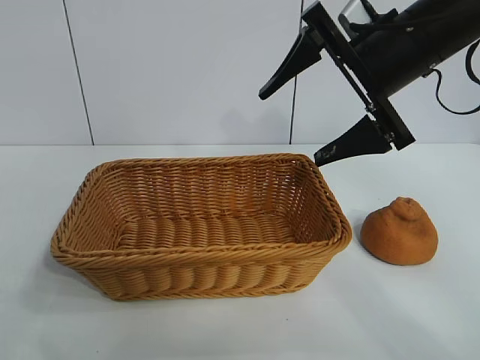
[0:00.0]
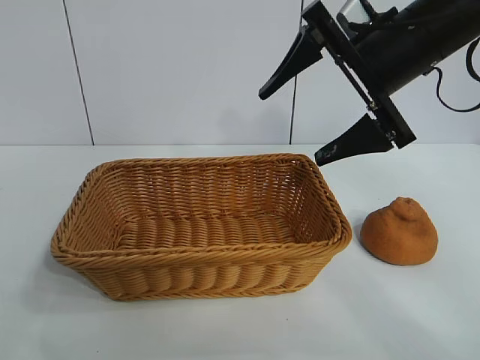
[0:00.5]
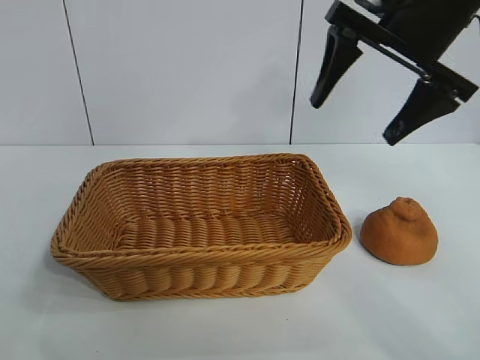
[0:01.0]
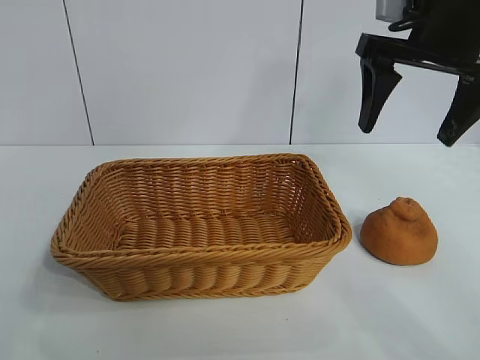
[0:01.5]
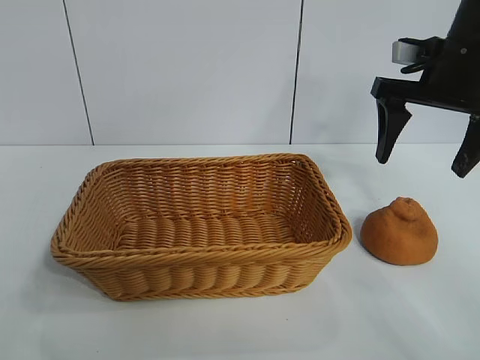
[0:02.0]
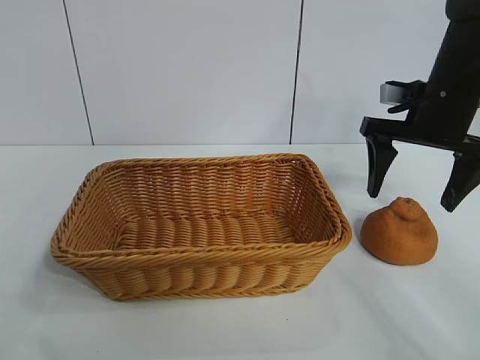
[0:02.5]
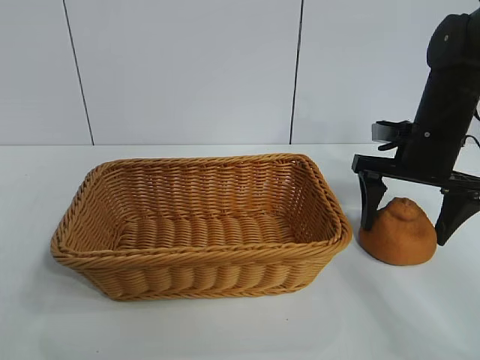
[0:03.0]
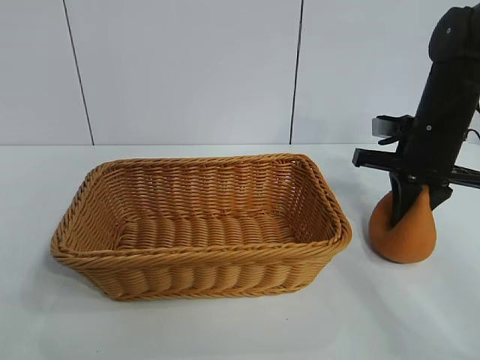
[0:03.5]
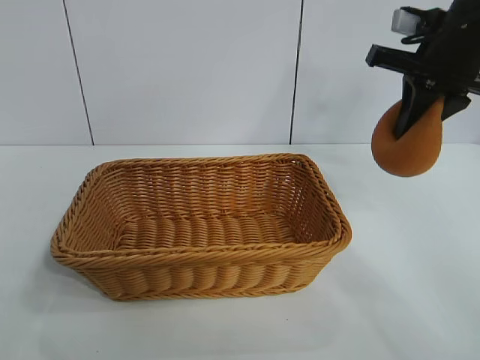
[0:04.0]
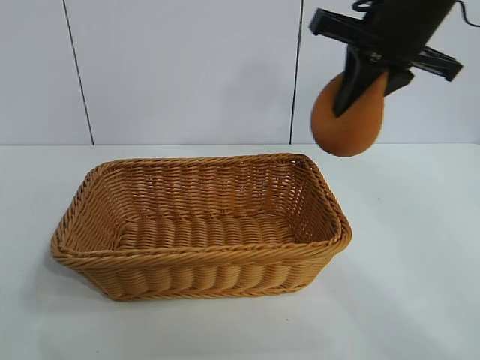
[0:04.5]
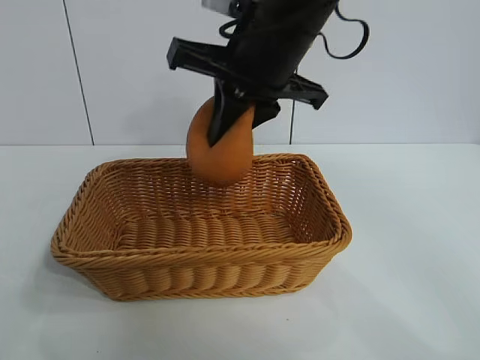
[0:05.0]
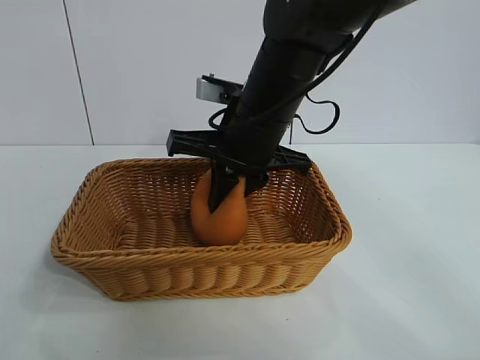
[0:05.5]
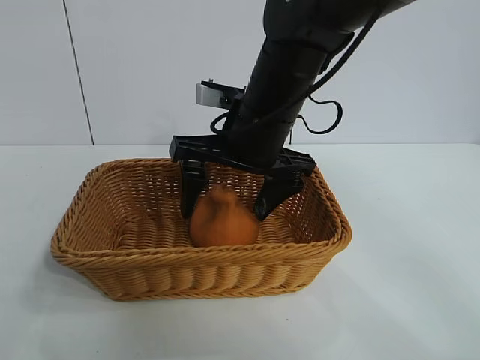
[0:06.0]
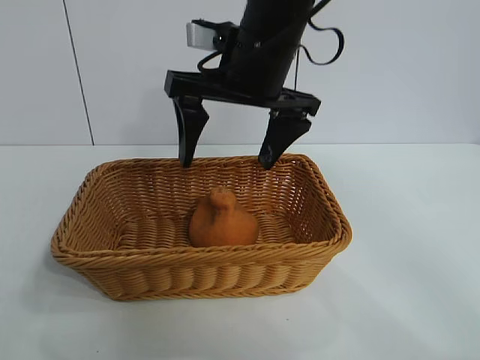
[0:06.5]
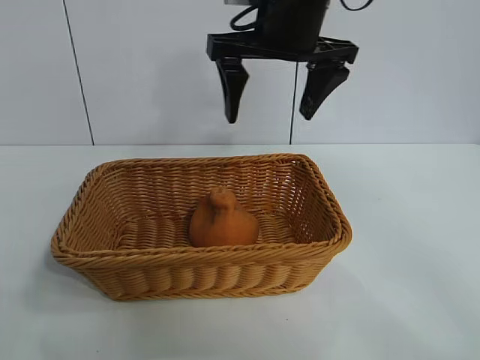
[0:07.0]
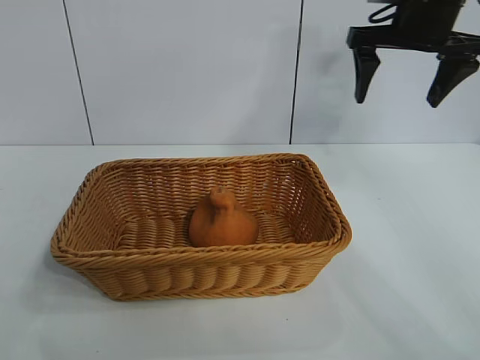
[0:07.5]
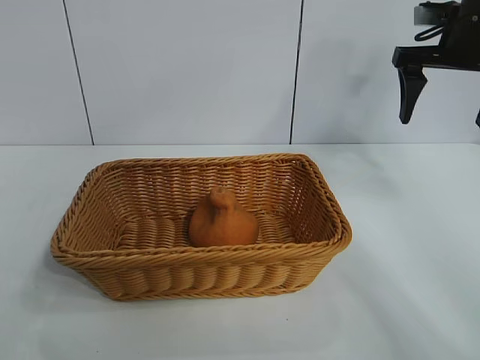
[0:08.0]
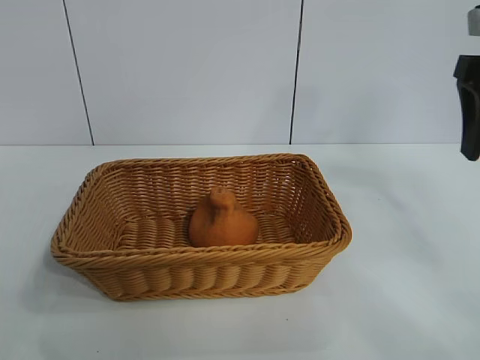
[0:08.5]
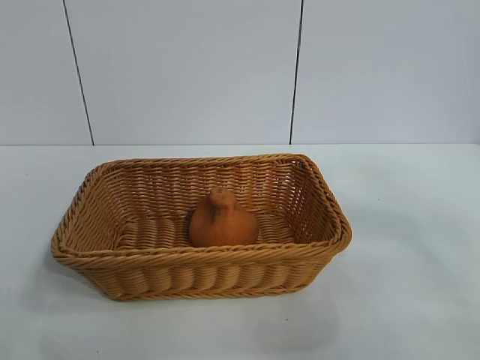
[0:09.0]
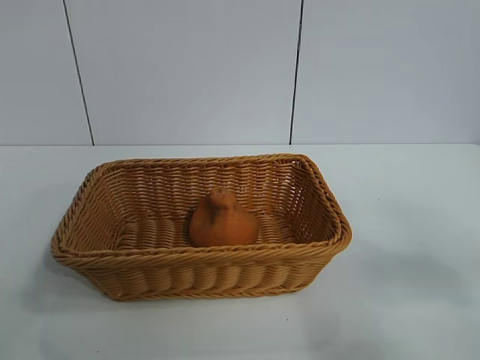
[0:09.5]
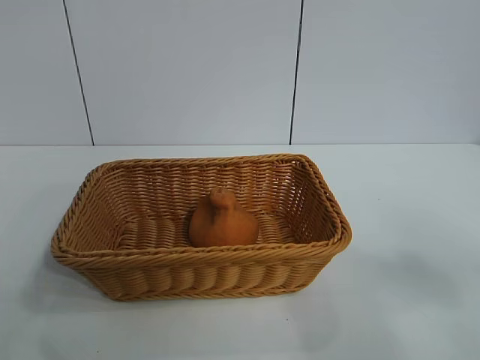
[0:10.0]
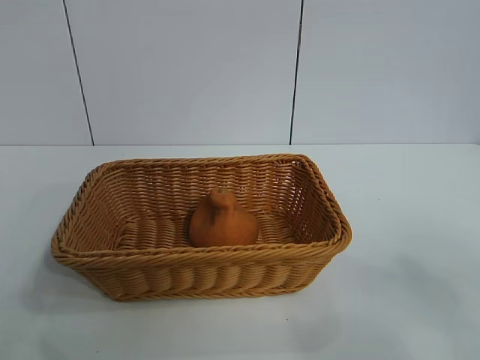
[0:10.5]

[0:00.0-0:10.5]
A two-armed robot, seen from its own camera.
Task of the whole recording: pick up the orange and put it into the basket.
Step, 0:00.0 to 0:03.5: Grasp the orange with right gripper.
Step, 0:04.0 to 0:06.0: Place the orange in the basket with right gripper.
